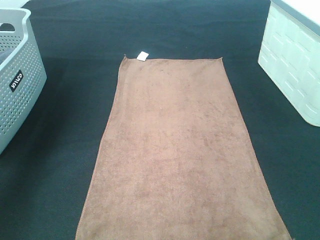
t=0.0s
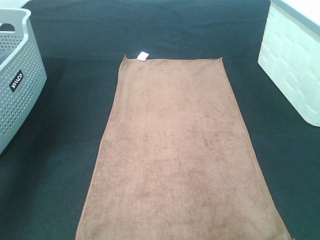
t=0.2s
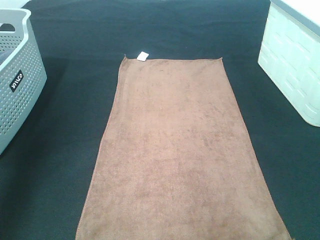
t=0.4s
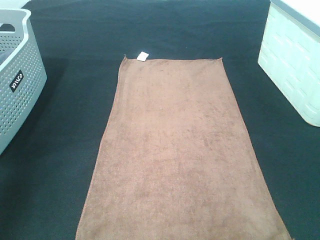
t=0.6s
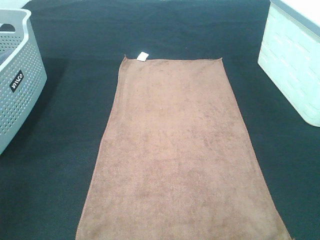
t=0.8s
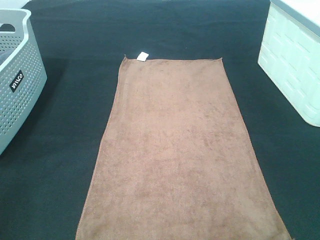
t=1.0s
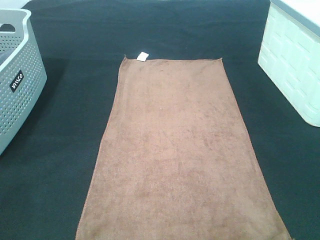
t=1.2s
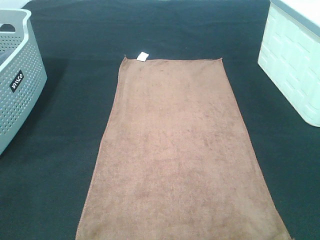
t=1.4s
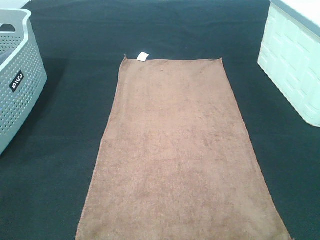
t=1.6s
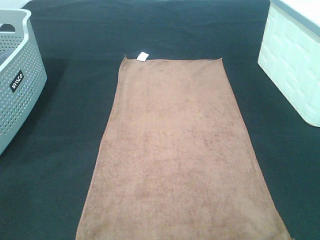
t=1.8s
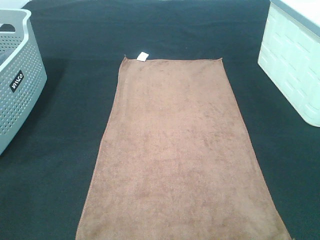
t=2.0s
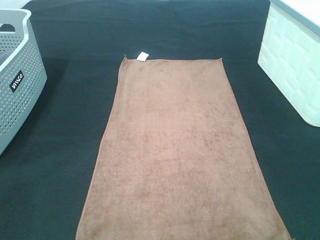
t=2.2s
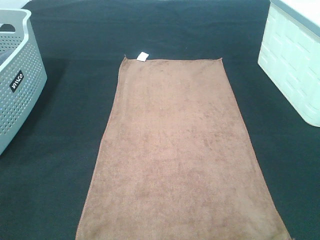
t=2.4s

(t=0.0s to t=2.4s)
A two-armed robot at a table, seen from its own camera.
Task of the whole recording: Remove the towel and place it.
t=0.0s - t=1.2s: The left gripper shifts some 35 cm backward.
